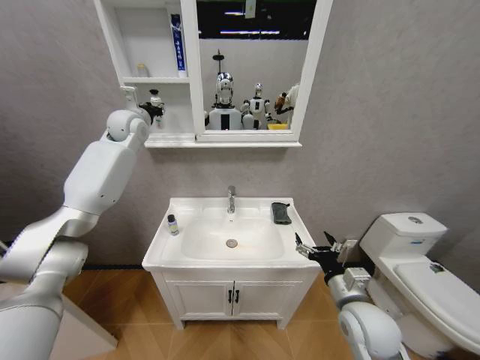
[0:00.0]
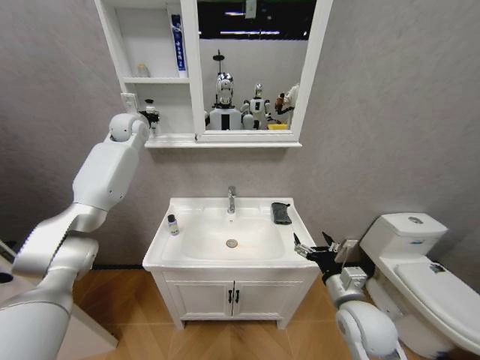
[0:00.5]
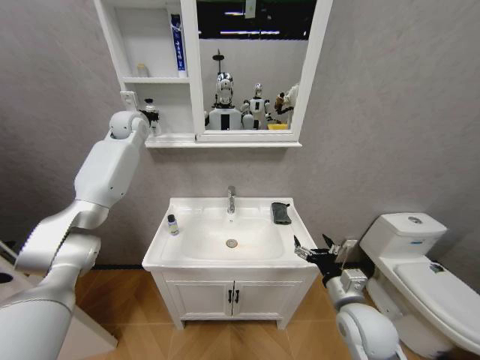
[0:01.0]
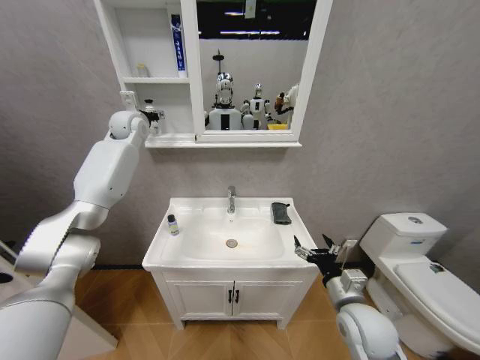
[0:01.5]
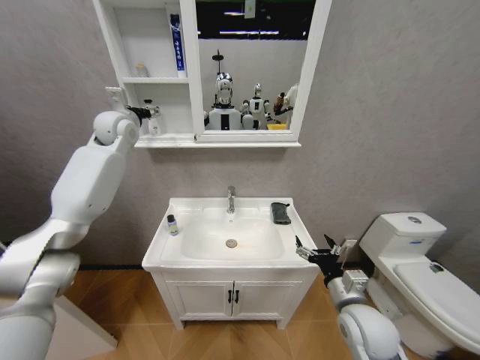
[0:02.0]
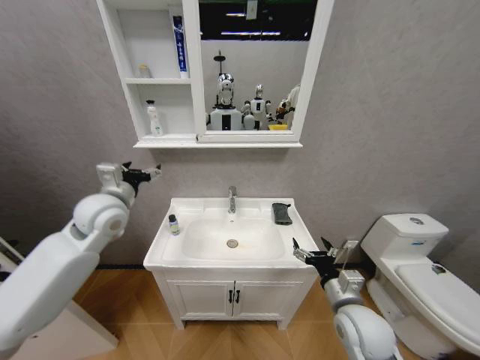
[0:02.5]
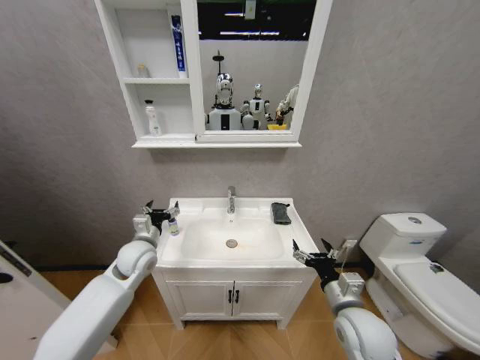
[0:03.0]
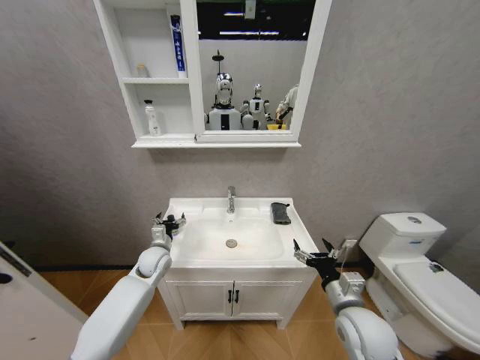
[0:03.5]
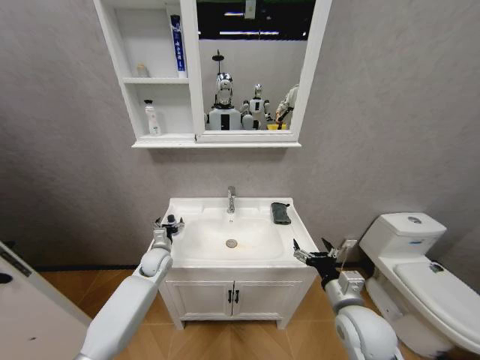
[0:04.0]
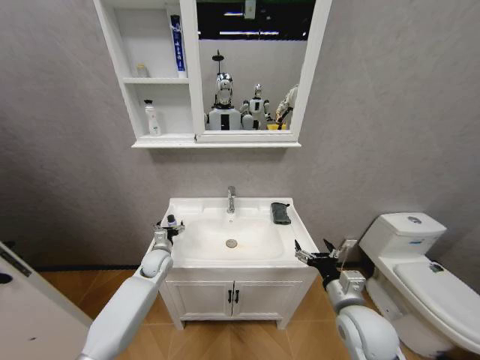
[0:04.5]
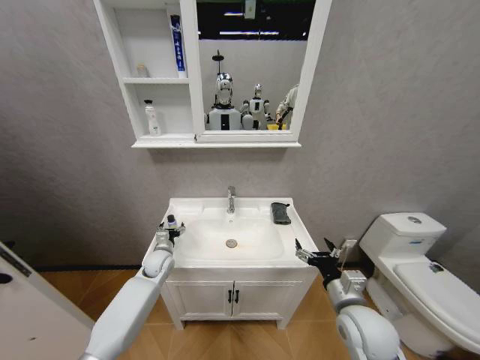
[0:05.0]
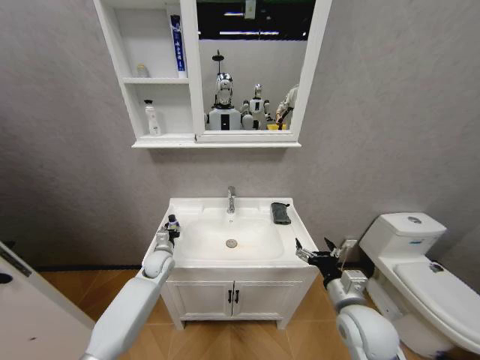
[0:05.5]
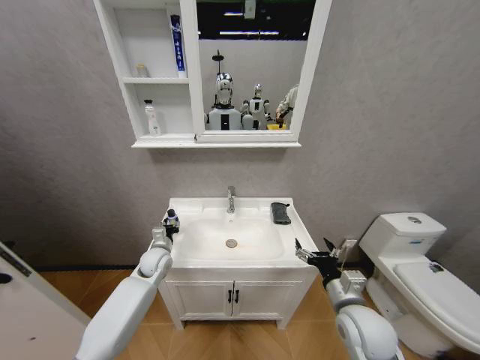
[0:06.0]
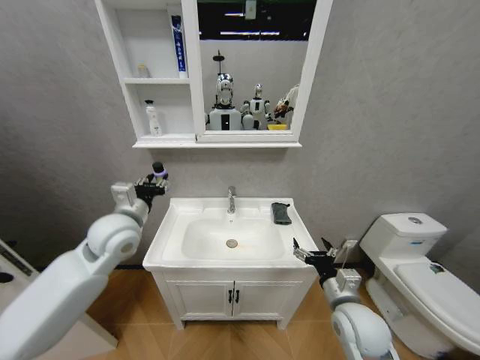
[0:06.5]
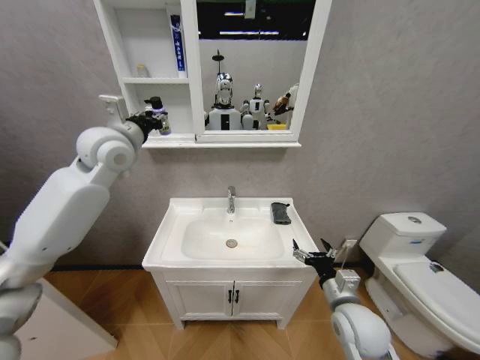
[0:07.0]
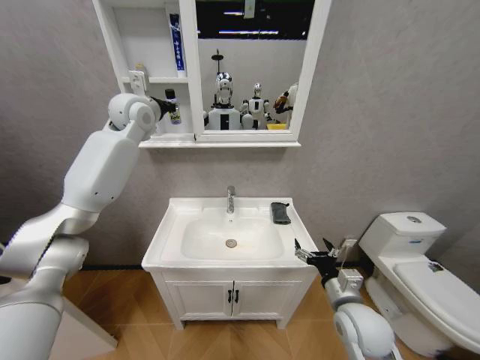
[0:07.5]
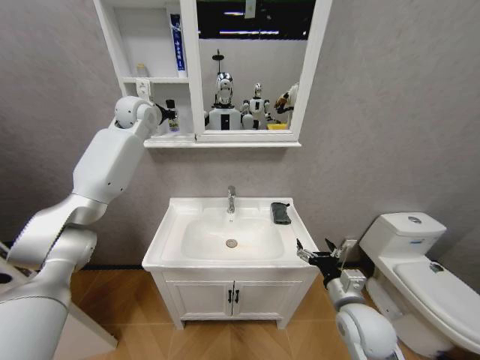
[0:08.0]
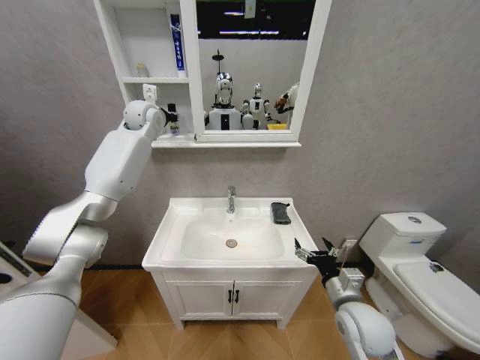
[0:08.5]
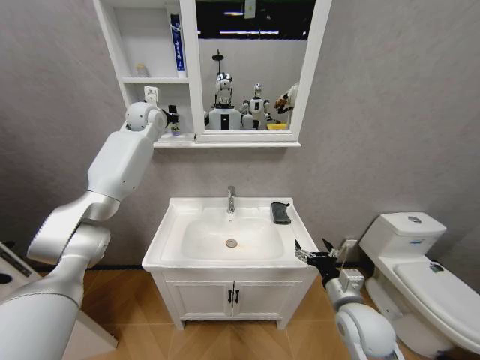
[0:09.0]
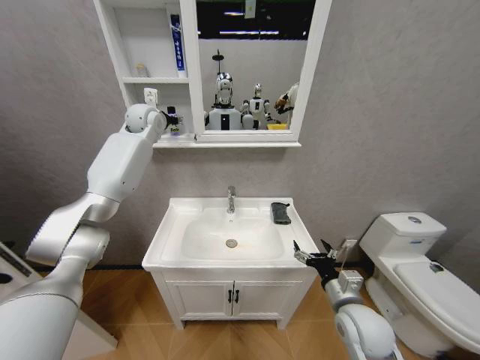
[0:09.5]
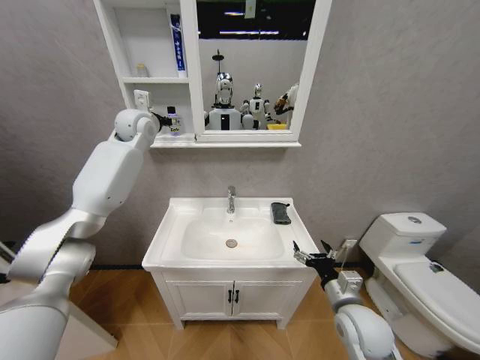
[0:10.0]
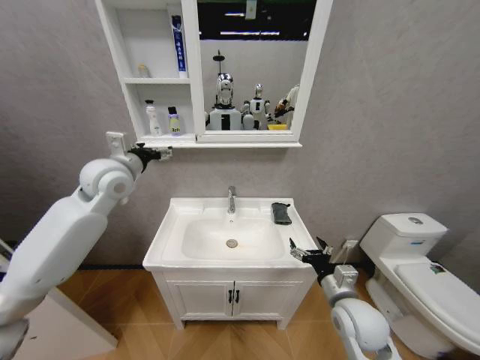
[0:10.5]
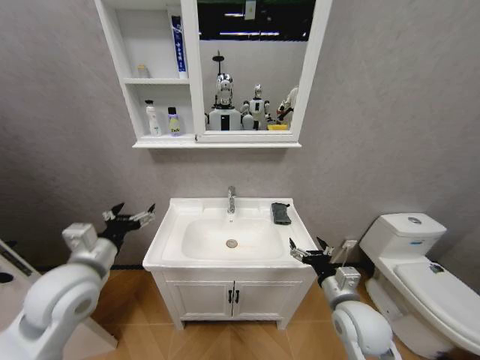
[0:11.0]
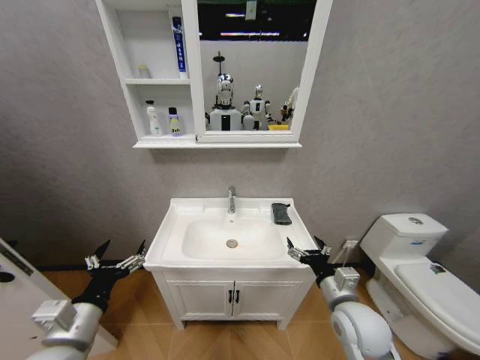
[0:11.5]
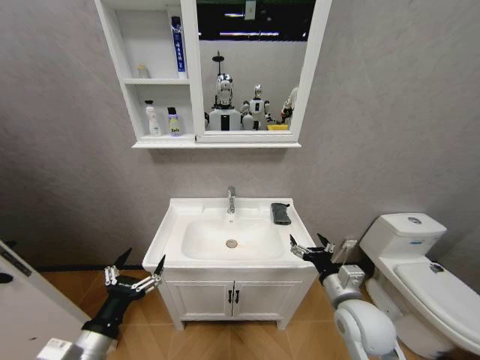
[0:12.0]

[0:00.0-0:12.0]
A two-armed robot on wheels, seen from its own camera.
Task of the whole recording: Move facial cleanser and shampoo from washbasin to cabinet, then wipe washbasin with towel.
0.0 to 2.0 s: The left gripper opens up.
2.0 to 4.0 s: The left gripper heads downward, covering some 40 cm.
4.0 to 6.0 s: The left gripper closes.
6.0 to 8.0 s: The left gripper shifts approximately 50 cm upward and forward.
8.0 to 10.0 s: The left gripper opens up.
10.0 to 12.0 s: The left gripper moves backward and downward, approximately 60 cm.

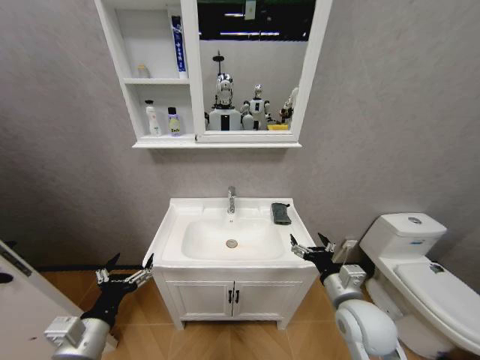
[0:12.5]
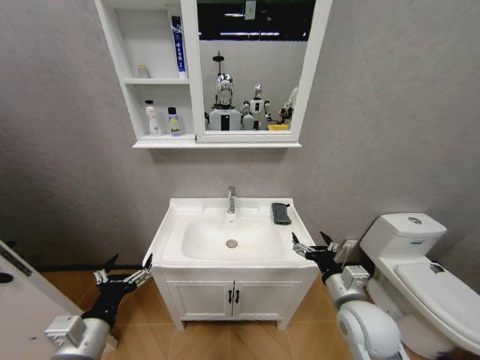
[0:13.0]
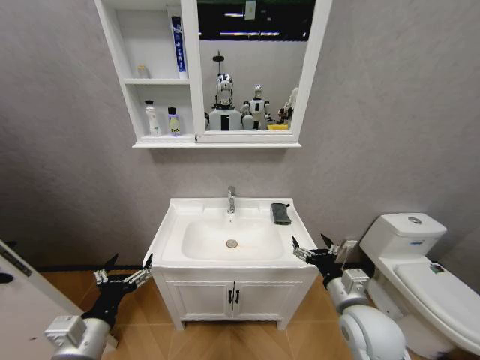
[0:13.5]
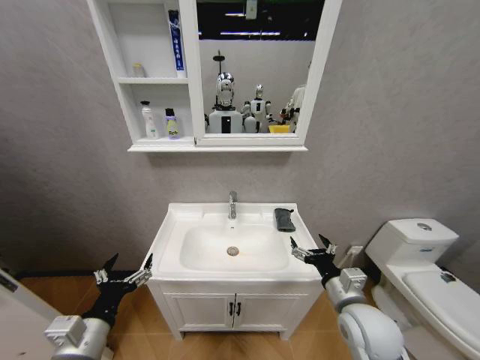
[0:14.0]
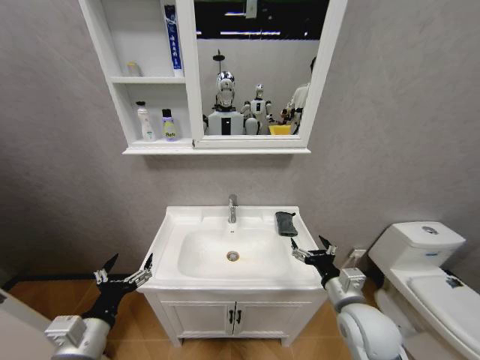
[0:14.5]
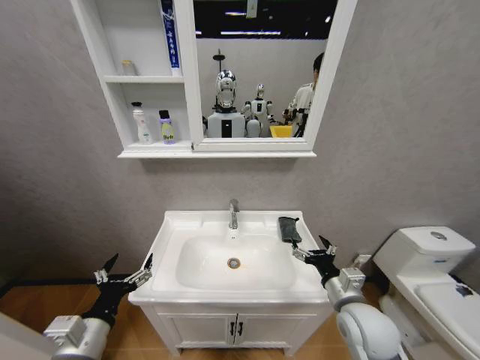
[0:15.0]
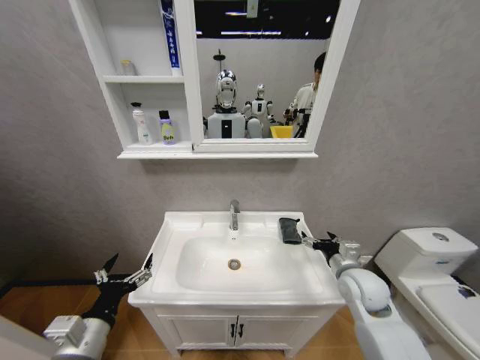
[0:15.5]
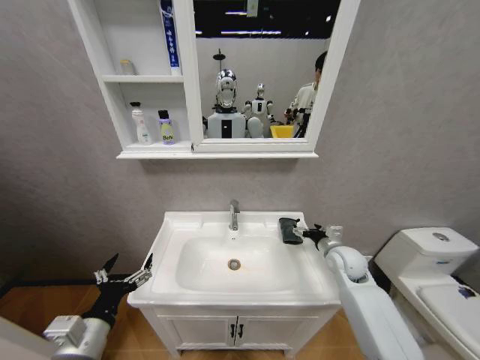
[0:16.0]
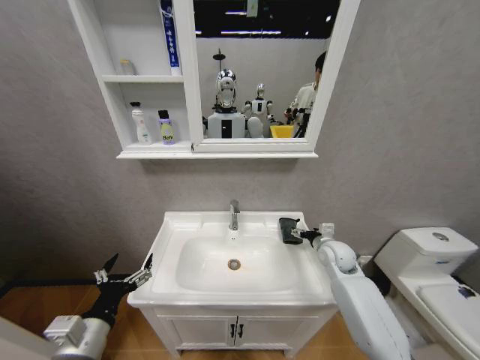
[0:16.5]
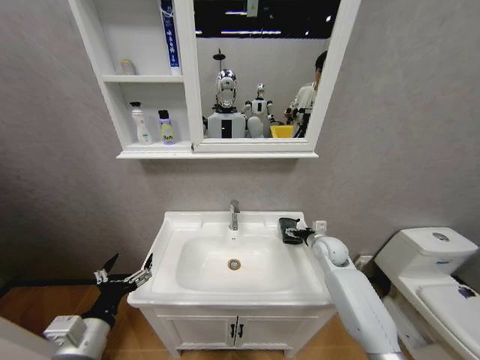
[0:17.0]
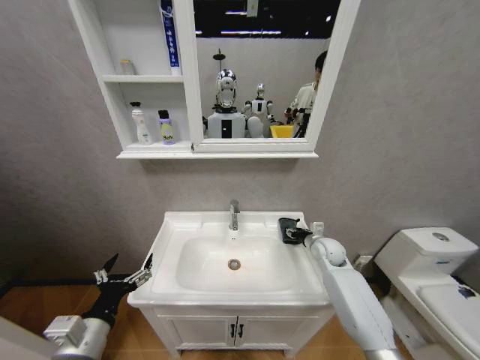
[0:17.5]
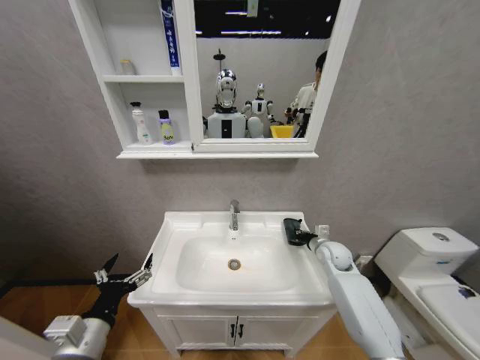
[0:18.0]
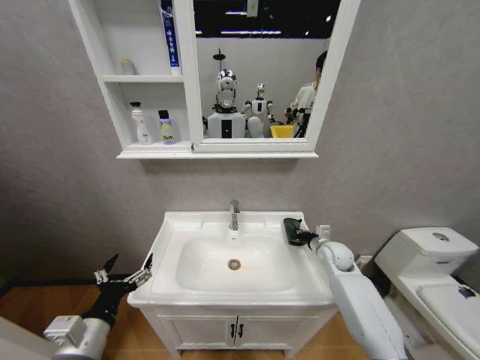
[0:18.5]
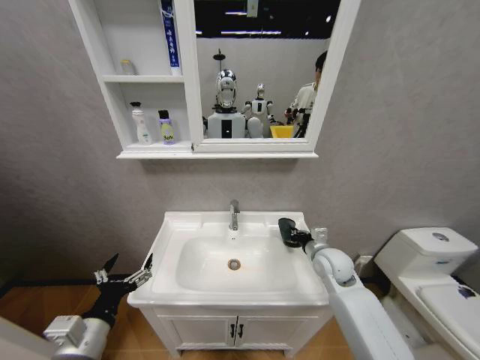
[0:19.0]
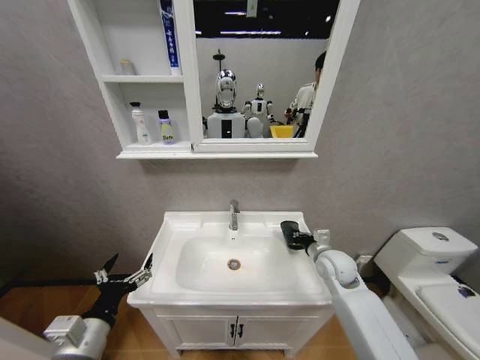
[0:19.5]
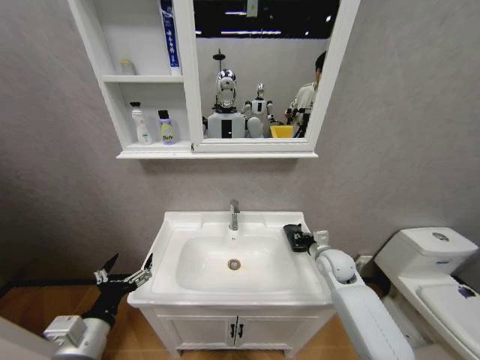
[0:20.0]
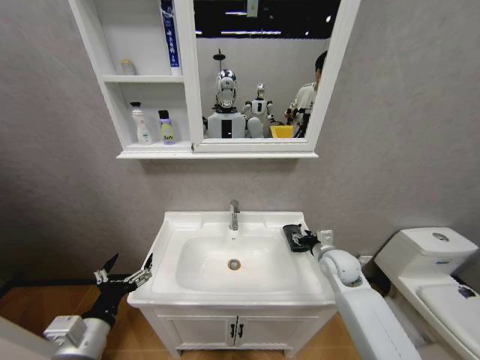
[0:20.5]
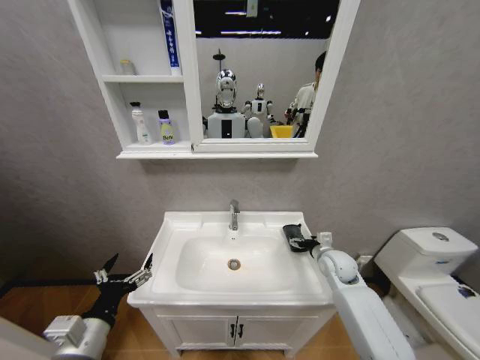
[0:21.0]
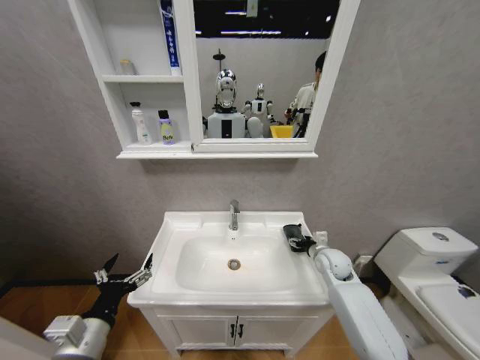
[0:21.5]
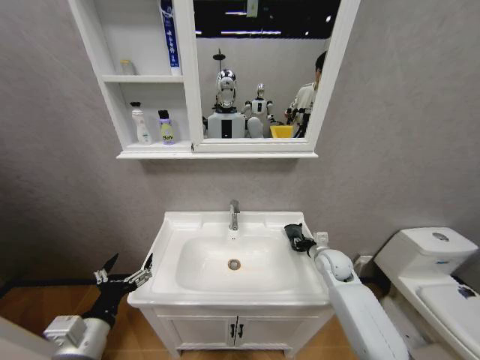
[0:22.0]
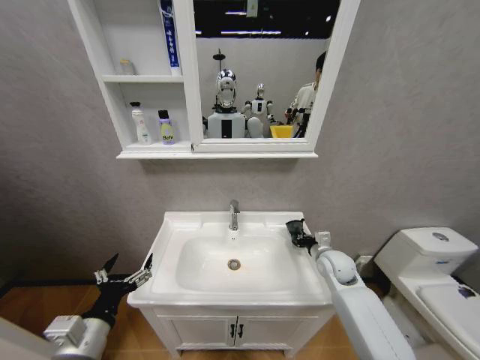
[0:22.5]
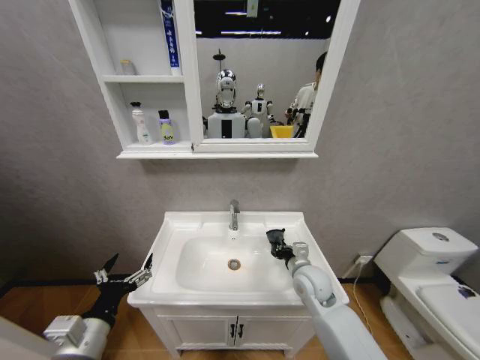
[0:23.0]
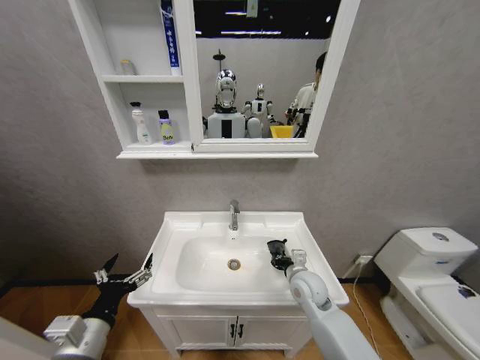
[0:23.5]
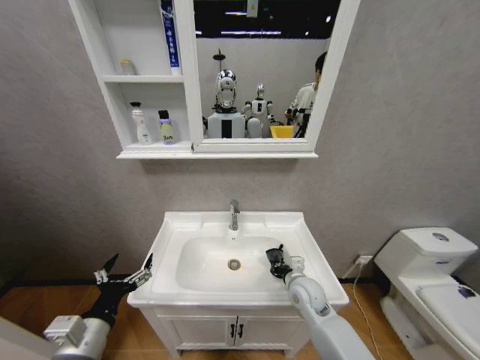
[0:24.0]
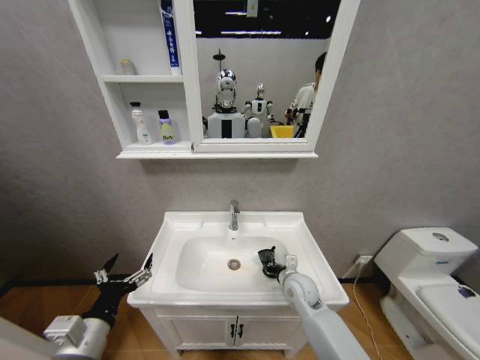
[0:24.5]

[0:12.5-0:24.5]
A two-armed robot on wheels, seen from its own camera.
Task of the whole recording: Move facial cleanser and shampoo from washbasin to cabinet, then wipe washbasin with towel.
14.5 to 16.5 s: The right gripper heads forward, covering roughly 20 cm.
16.5 to 18.5 s: The right gripper closes its fingers.
18.5 to 20.5 s: The right gripper is displaced backward by about 5 cm, and opens its fingers.
20.5 to 22.5 s: The right gripper closes its fingers.
22.5 to 24.5 s: The right gripper shifts roughly 15 cm to the left, downward and backward.

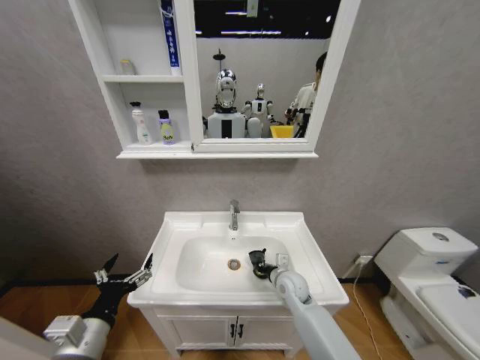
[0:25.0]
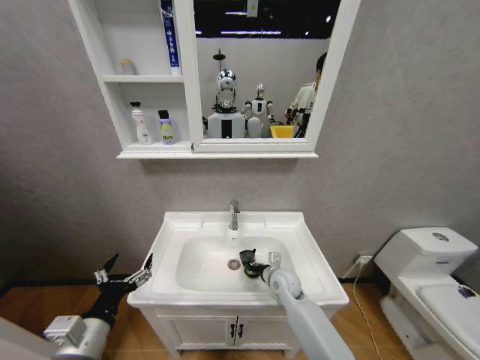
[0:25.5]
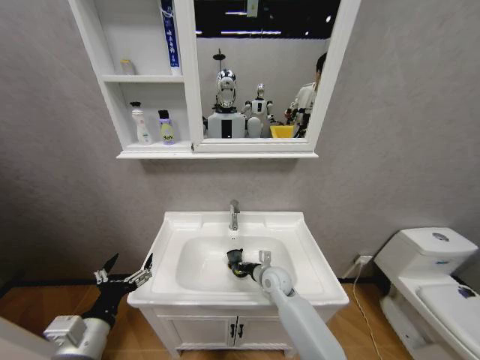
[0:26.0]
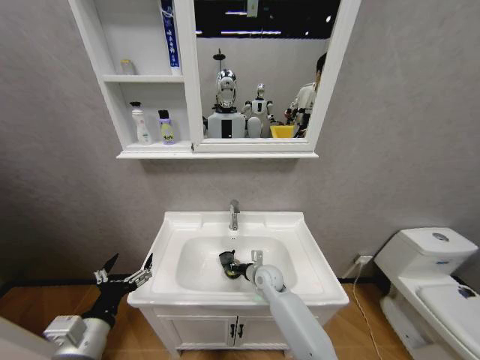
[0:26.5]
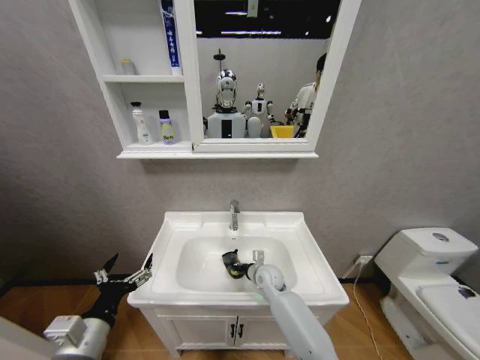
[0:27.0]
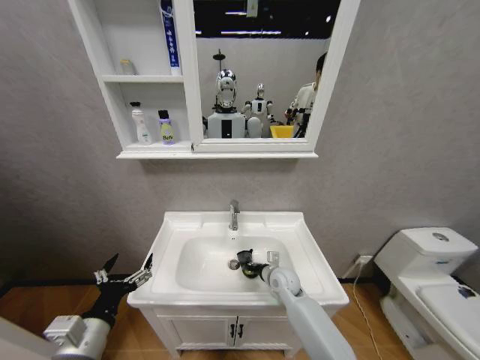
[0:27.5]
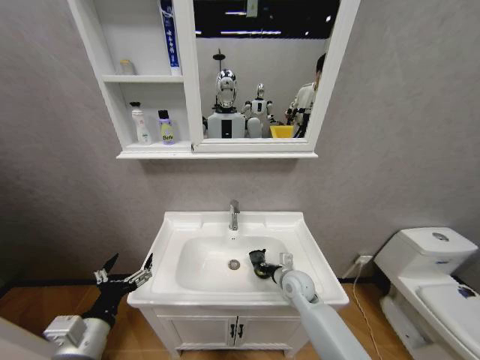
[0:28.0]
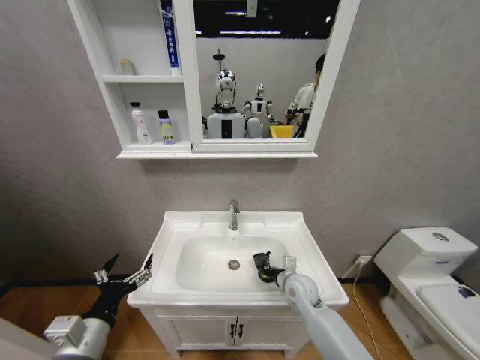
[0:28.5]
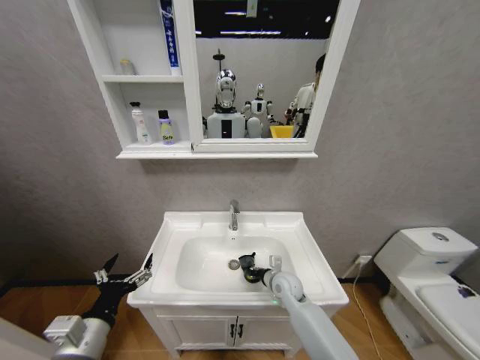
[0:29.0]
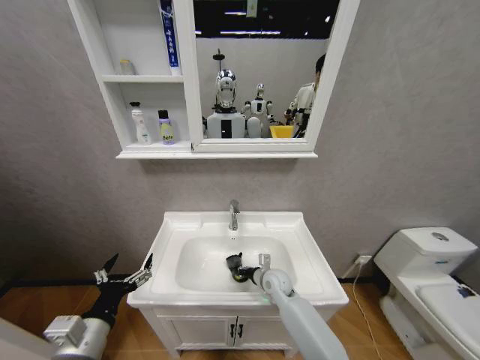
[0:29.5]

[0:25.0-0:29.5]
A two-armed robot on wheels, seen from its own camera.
Task of the whole recording: Move facial cleanser and shampoo from washbasin to cabinet, then wipe washbasin with towel.
25.0 to 27.0 s: The right gripper moves to the left, some 5 cm.
27.0 to 29.5 s: The right gripper reaches approximately 10 cm to the right, then returns.
